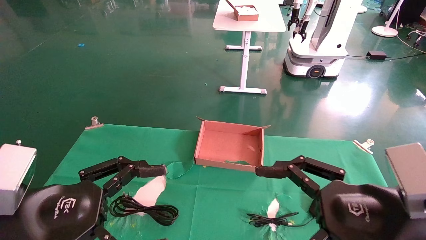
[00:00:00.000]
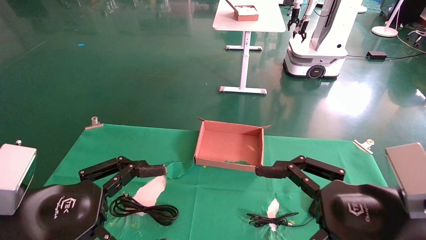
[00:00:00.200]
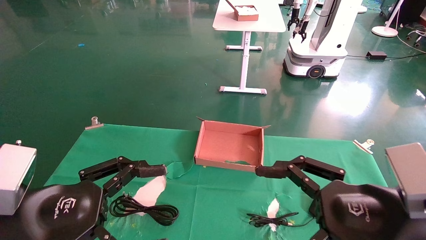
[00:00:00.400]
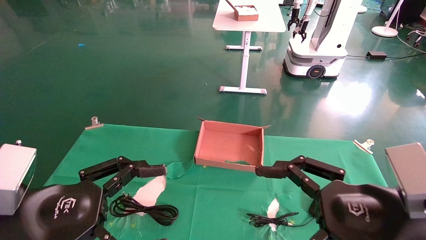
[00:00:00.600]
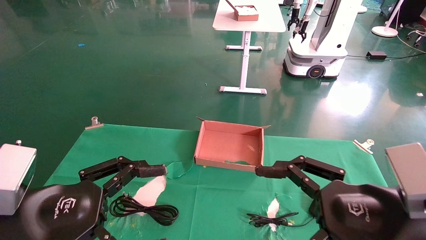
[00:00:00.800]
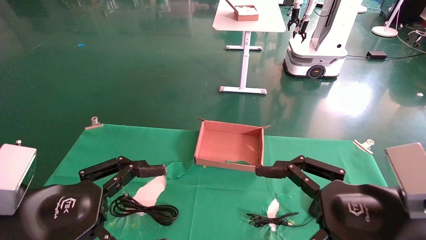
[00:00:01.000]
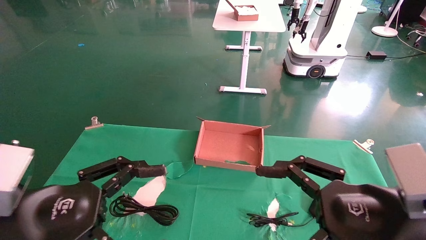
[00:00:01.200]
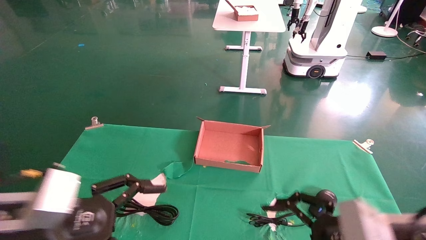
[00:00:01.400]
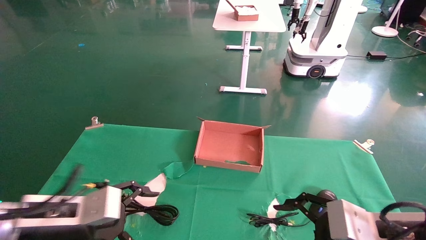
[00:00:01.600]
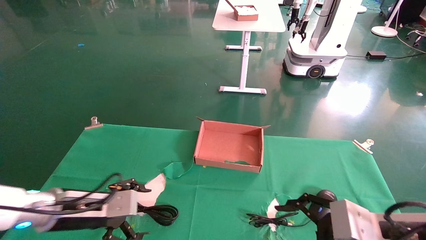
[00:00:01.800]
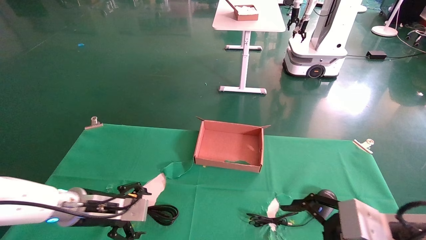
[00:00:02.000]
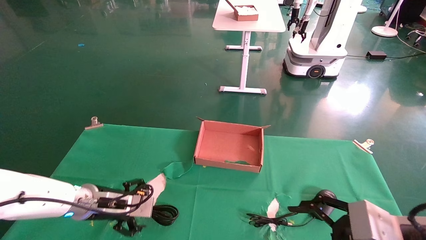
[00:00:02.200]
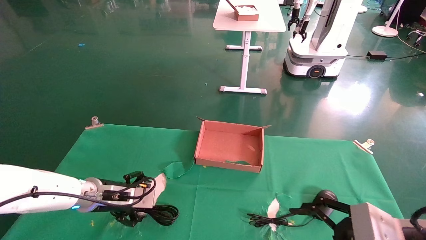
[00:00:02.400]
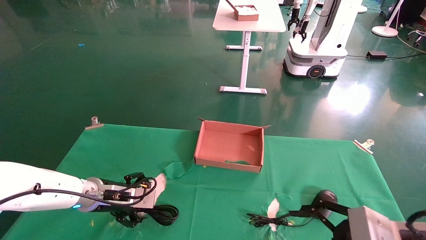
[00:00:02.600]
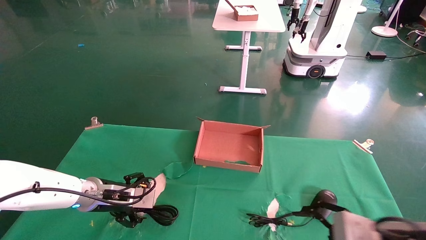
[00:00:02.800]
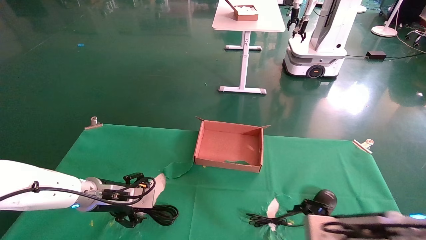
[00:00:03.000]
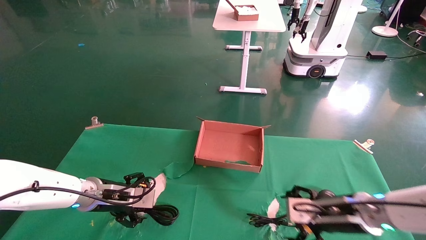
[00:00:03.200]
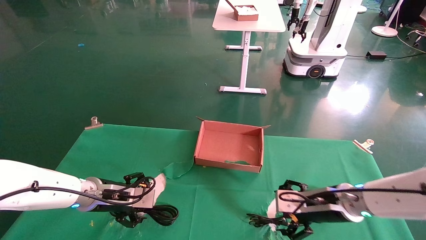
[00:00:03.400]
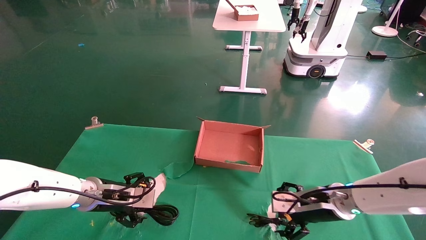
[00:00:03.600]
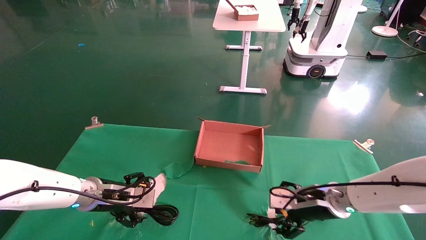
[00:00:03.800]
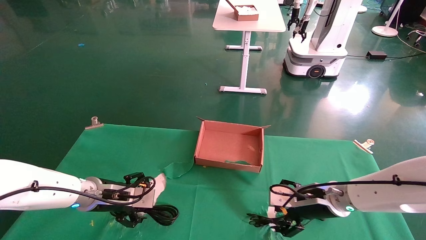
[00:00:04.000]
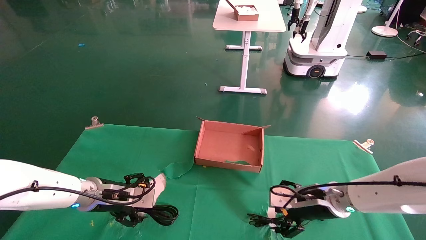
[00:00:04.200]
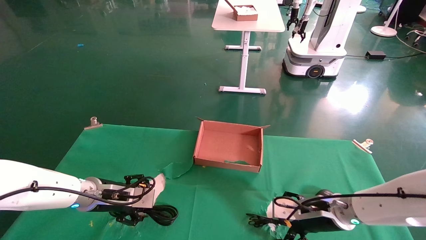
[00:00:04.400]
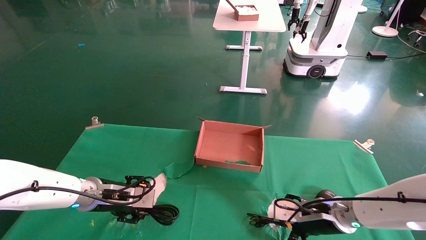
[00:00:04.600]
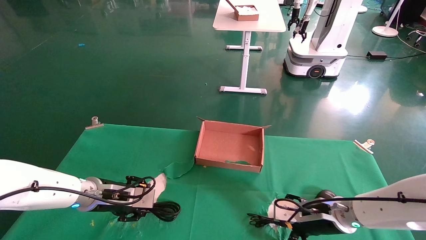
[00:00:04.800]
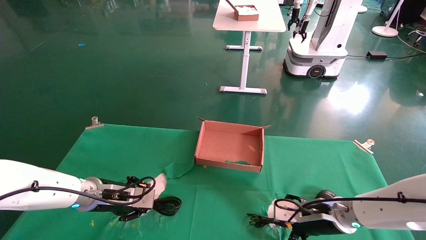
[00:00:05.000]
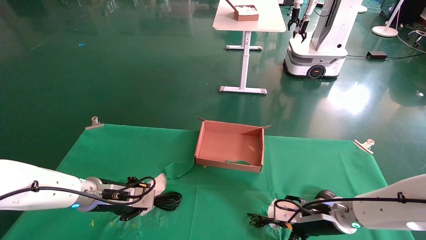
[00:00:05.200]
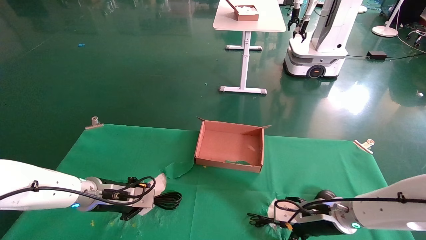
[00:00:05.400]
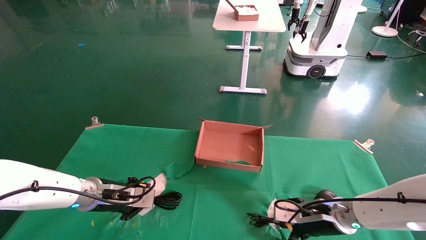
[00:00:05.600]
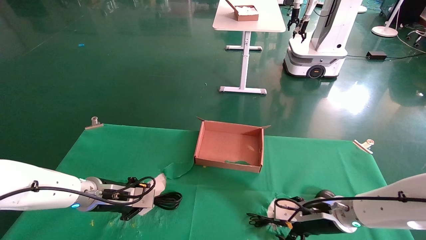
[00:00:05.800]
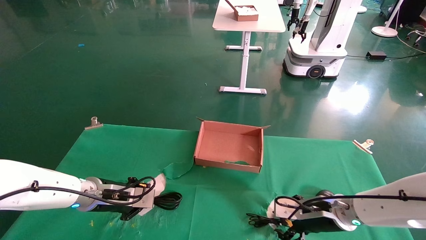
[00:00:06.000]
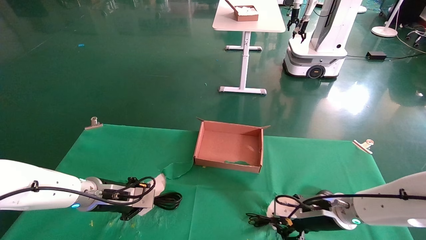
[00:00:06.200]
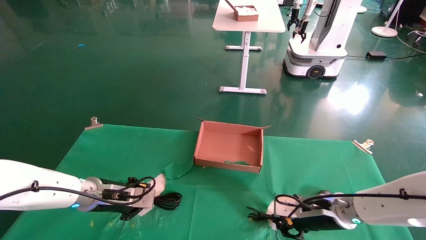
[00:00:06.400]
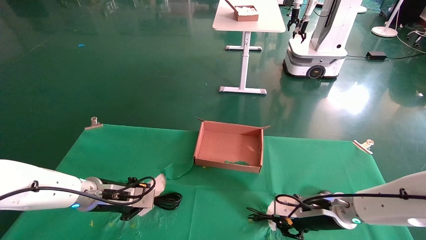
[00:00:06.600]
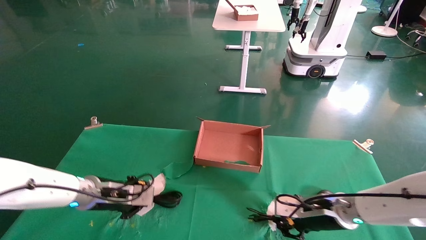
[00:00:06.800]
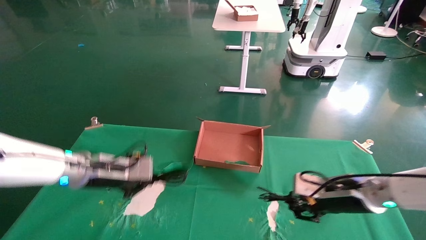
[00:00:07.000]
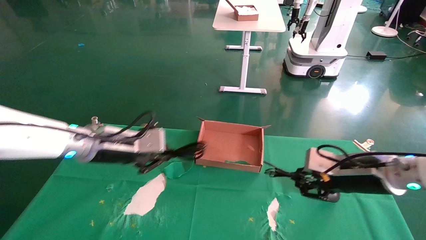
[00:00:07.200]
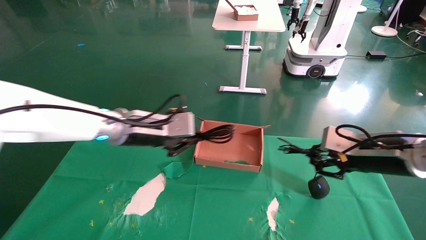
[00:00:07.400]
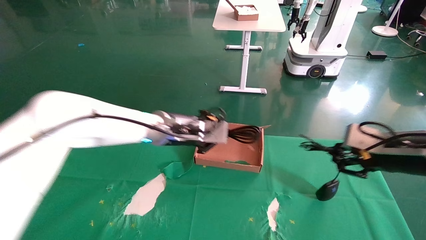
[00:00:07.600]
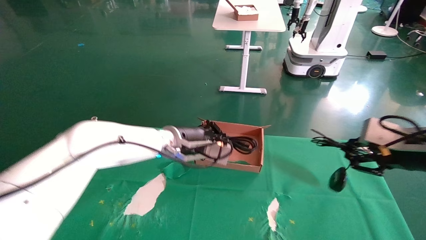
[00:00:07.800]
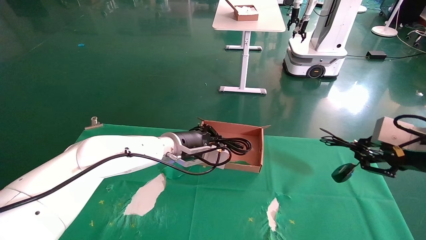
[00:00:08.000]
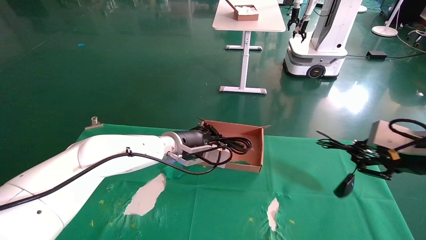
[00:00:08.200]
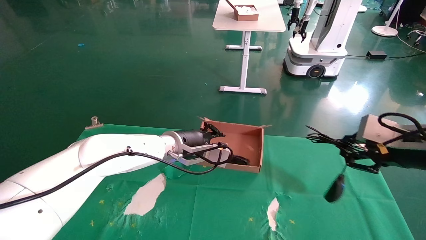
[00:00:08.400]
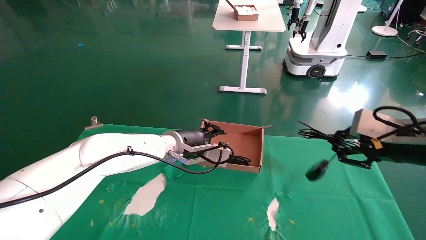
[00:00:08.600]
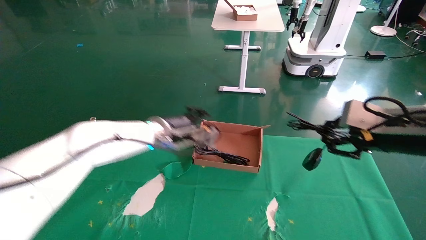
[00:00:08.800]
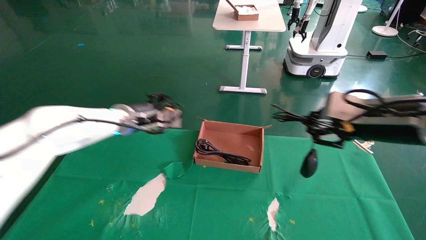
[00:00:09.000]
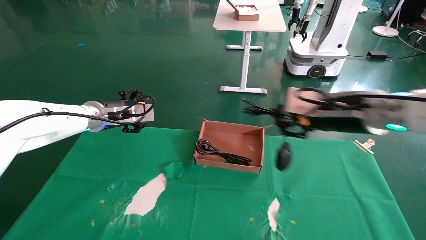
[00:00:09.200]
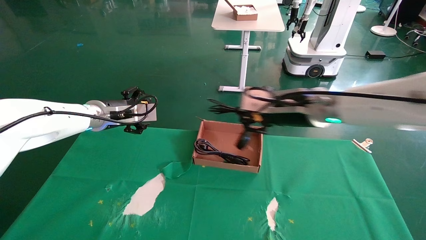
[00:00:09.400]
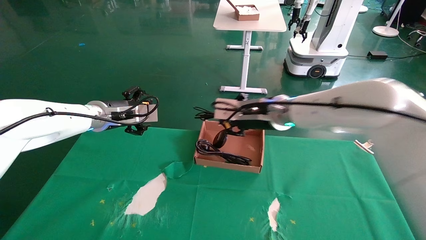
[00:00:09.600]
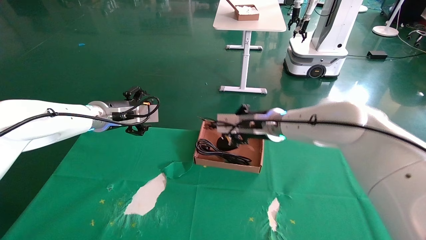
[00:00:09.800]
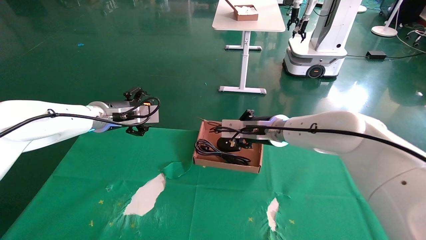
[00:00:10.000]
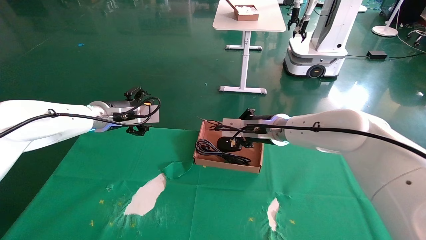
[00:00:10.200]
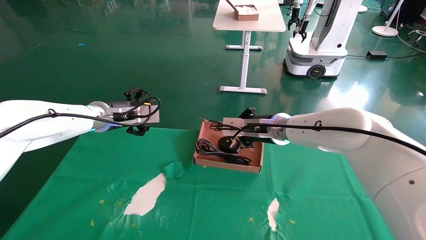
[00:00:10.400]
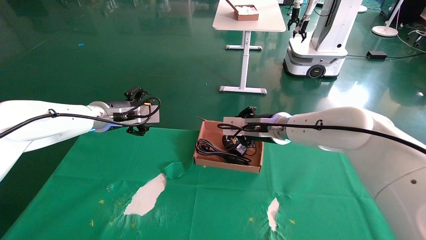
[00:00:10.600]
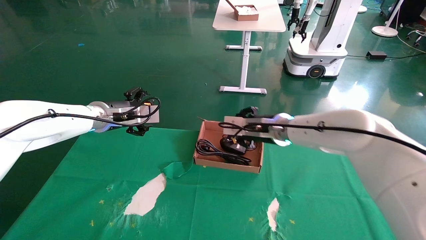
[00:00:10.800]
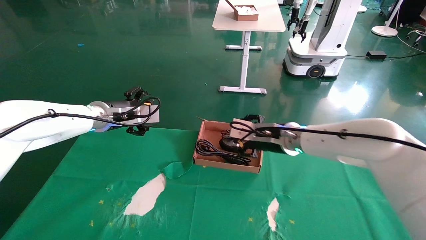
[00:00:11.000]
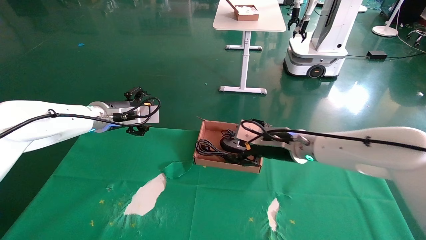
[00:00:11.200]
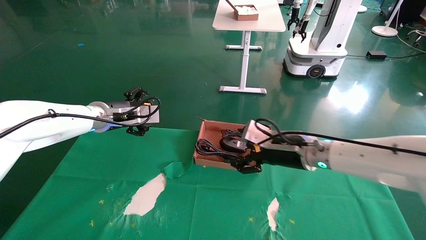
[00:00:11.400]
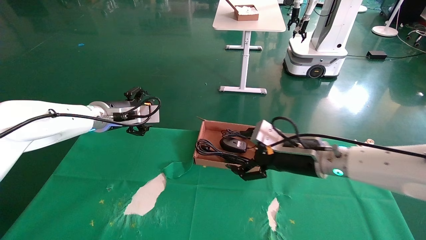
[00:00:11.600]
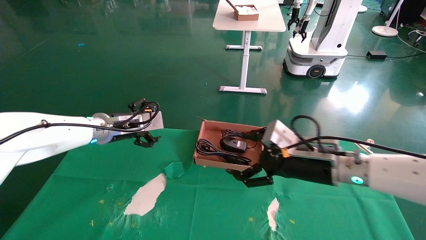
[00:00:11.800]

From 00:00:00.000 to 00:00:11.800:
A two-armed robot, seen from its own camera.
Step, from 00:00:01.600 to 00:00:06.600: Grab and lift both the mouse and power cord from the accessory packaging area at the same time.
Step, from 00:00:06.800 to 00:00:10.600: Place the mouse and power cord into the box.
From 00:00:00.000 to 00:00:01.400: The right gripper moves about 5 cm. The left gripper moves some 5 cm.
From 00:00:01.400 to 00:00:03.000: The right gripper shifts some 10 cm forward and downward; the left gripper goes about 20 cm forward.
From 00:00:03.000 to 00:00:04.400: The right gripper is displaced forward by approximately 10 cm.
From 00:00:04.400 to 00:00:06.000: The left gripper closes its fingers. Meanwhile the right gripper closes its fingers.
From 00:00:06.000 to 00:00:07.400: The two grippers go about 15 cm upward and to the right. The right gripper closes up.
From 00:00:07.400 to 00:00:08.800: The left gripper goes roughly 5 cm forward, while the right gripper travels upward by roughly 5 cm.
From 00:00:08.800 to 00:00:10.400: The left gripper shifts about 10 cm to the left, and opens; the right gripper shifts approximately 25 cm to the left and forward.
From 00:00:10.400 to 00:00:11.800: The right gripper heads backward and to the right, covering some 15 cm, and opens.

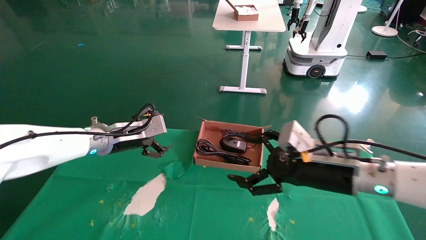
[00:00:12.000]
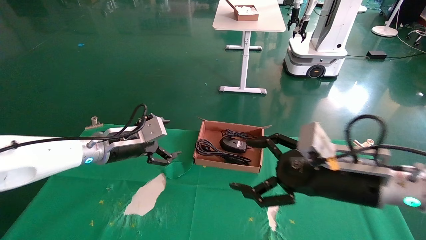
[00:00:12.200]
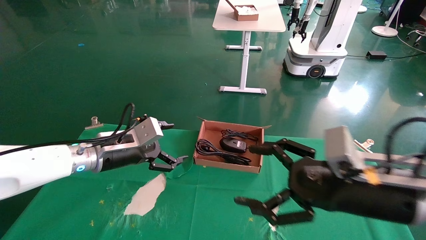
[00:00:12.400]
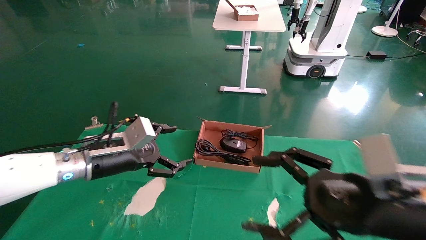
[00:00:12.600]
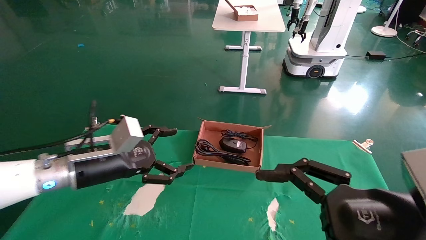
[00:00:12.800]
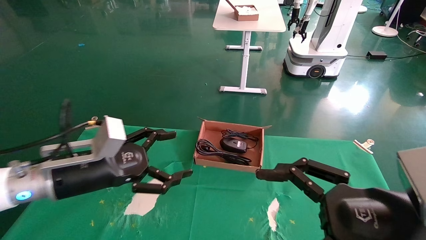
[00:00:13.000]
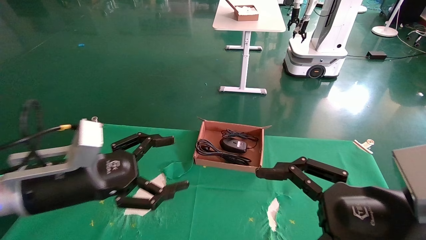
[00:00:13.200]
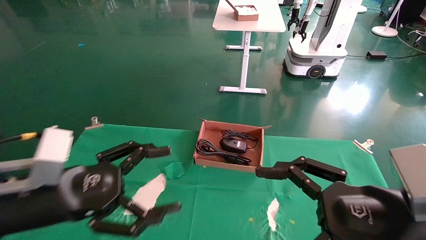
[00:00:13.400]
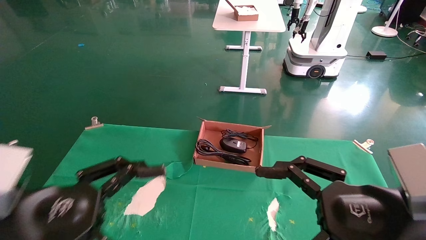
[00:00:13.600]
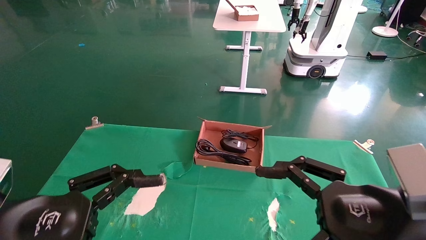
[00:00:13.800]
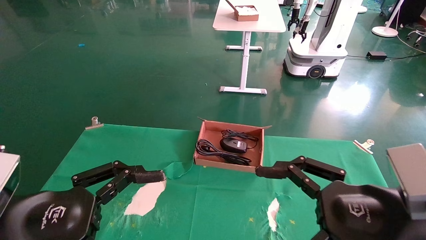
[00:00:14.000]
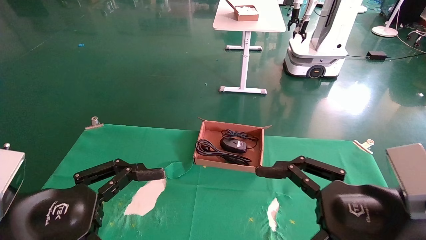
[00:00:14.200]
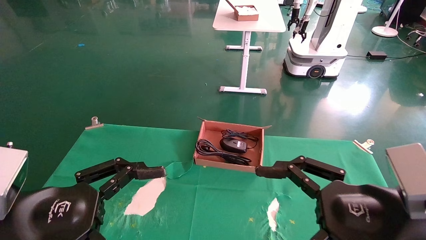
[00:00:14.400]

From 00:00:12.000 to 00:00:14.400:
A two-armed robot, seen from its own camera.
From 00:00:12.000 to 00:00:13.200: Both grippers move backward, some 15 cm.
From 00:00:13.200 to 00:00:14.400: The left gripper shifts about 10 cm backward.
